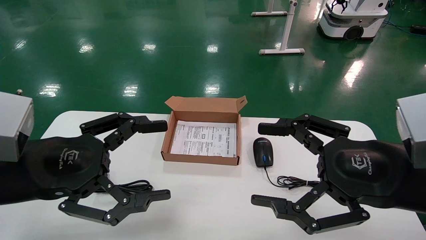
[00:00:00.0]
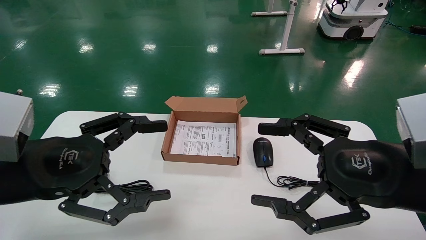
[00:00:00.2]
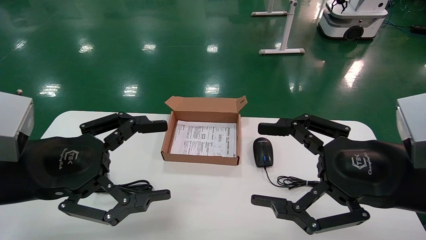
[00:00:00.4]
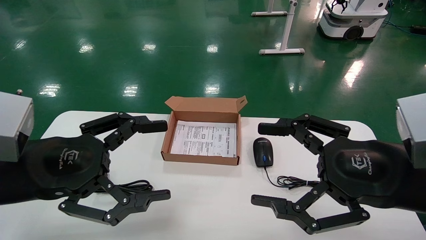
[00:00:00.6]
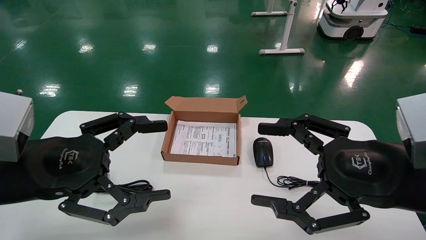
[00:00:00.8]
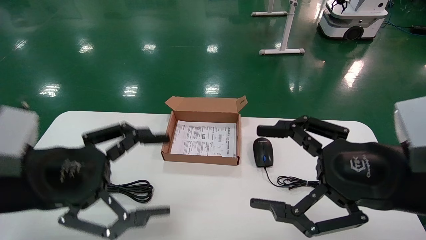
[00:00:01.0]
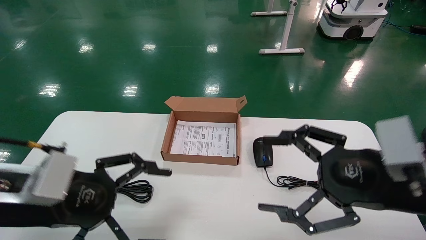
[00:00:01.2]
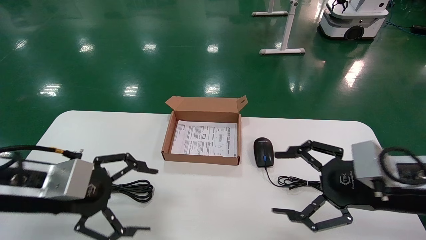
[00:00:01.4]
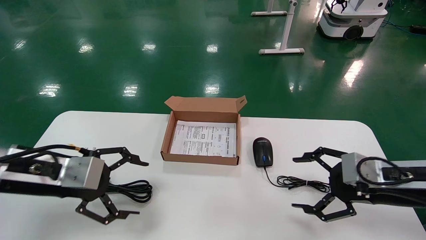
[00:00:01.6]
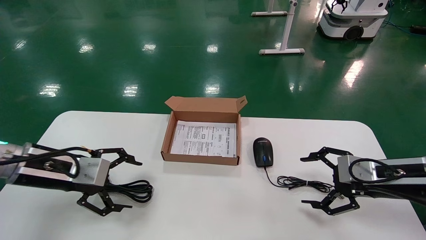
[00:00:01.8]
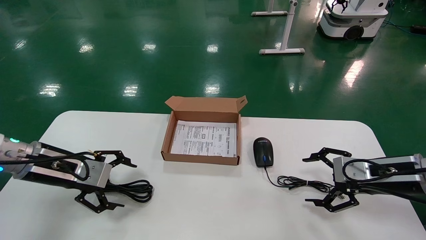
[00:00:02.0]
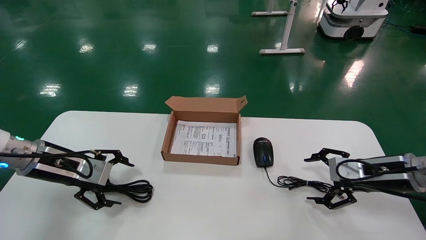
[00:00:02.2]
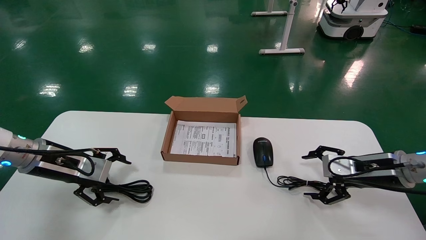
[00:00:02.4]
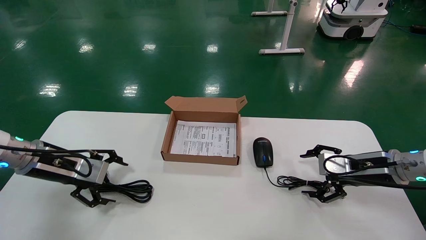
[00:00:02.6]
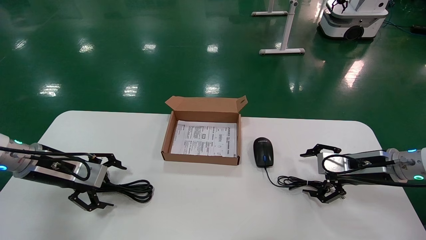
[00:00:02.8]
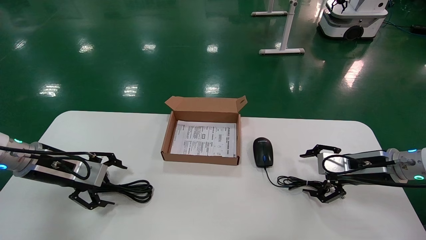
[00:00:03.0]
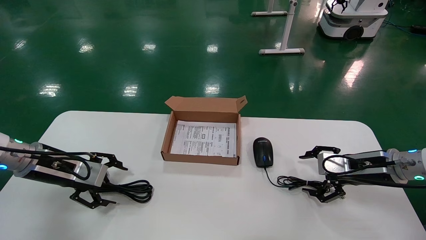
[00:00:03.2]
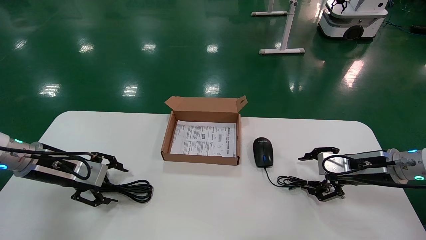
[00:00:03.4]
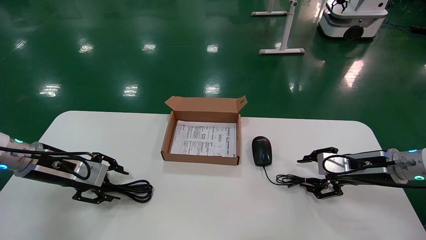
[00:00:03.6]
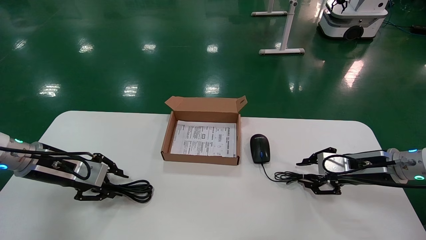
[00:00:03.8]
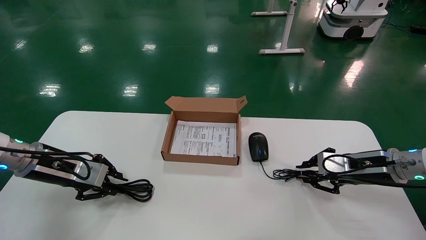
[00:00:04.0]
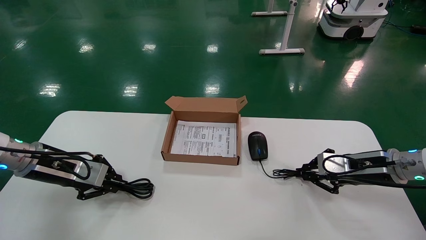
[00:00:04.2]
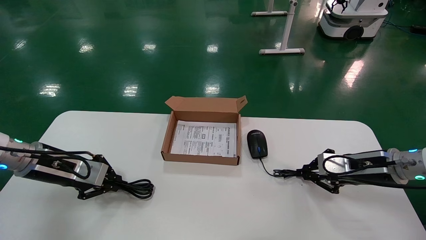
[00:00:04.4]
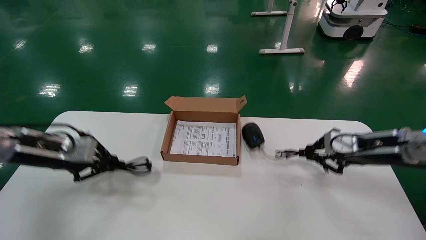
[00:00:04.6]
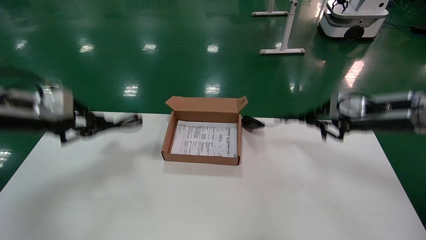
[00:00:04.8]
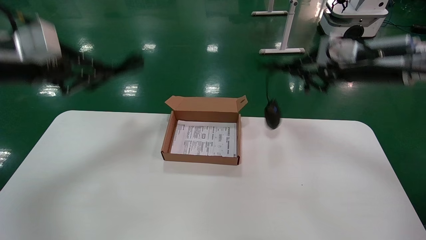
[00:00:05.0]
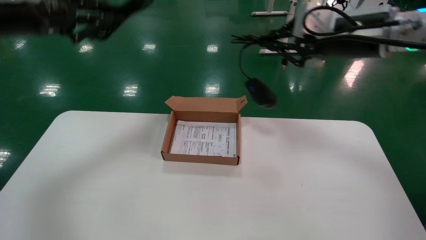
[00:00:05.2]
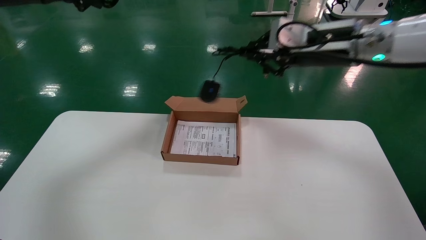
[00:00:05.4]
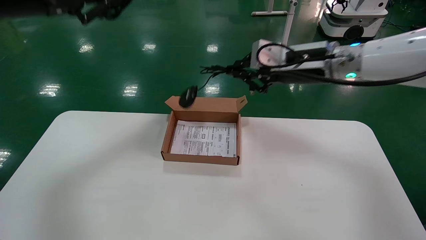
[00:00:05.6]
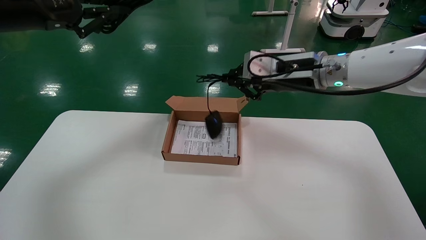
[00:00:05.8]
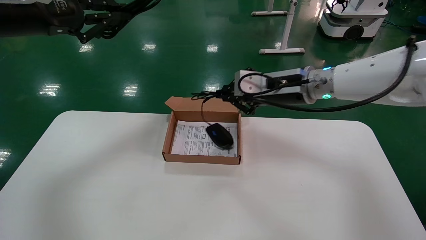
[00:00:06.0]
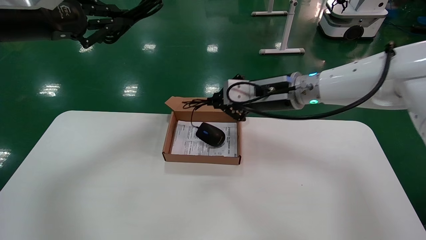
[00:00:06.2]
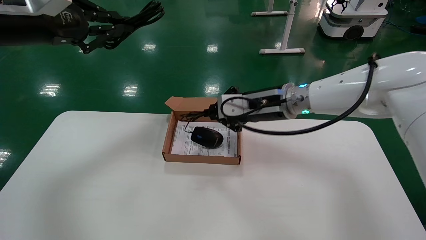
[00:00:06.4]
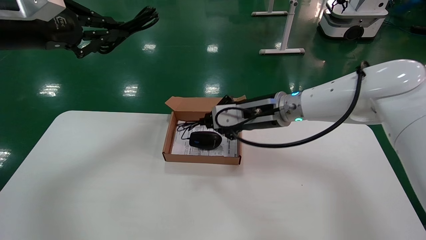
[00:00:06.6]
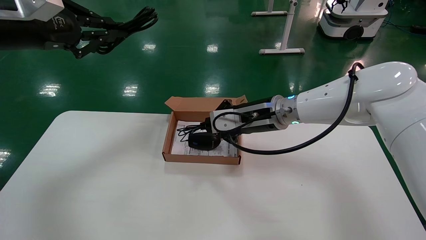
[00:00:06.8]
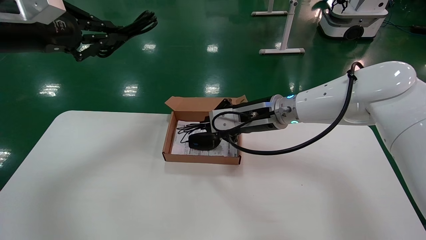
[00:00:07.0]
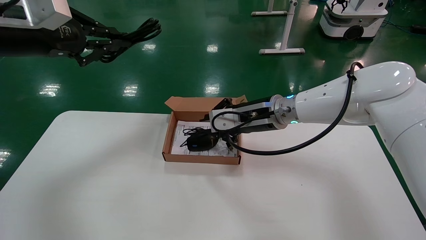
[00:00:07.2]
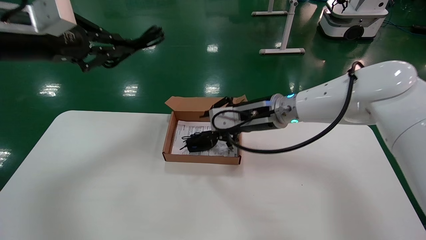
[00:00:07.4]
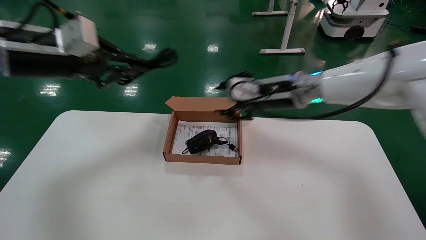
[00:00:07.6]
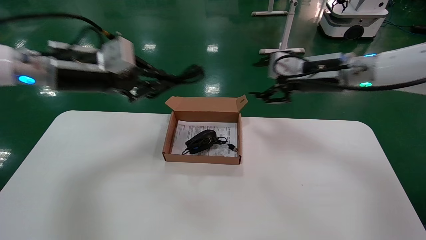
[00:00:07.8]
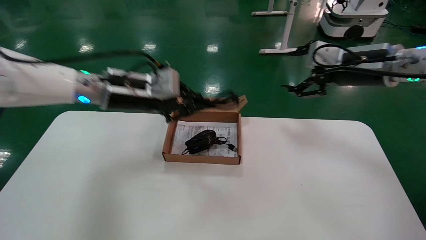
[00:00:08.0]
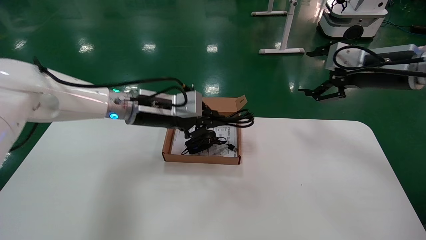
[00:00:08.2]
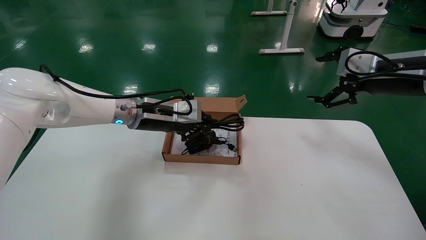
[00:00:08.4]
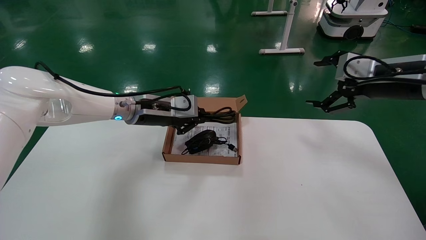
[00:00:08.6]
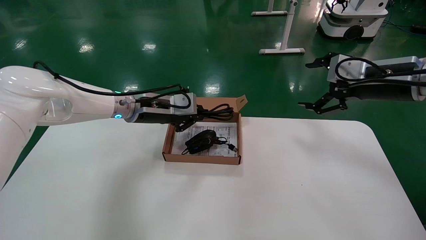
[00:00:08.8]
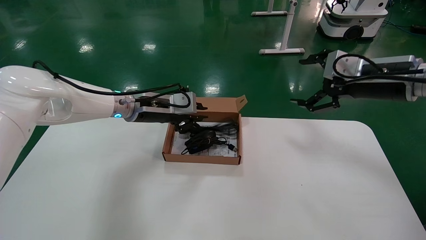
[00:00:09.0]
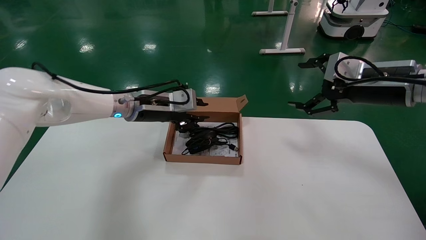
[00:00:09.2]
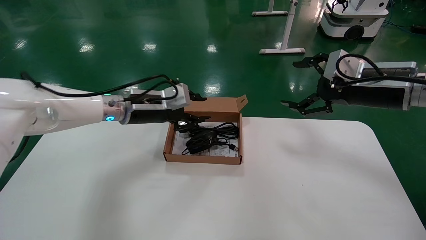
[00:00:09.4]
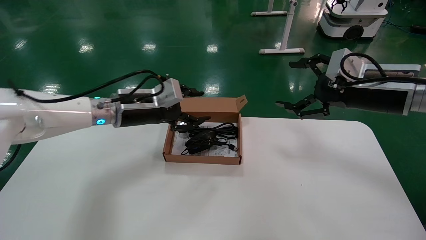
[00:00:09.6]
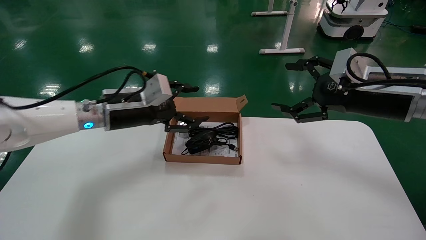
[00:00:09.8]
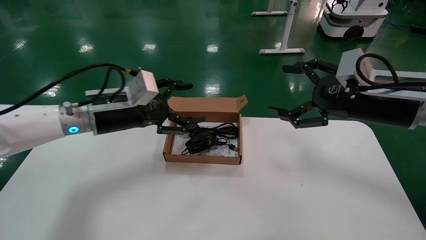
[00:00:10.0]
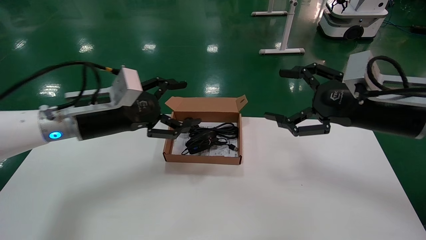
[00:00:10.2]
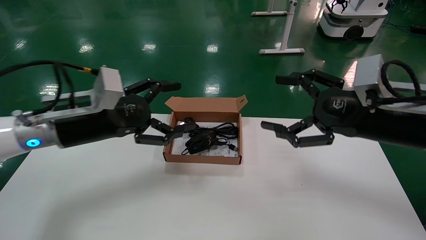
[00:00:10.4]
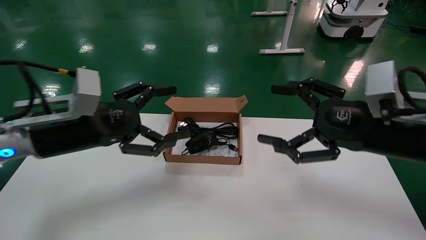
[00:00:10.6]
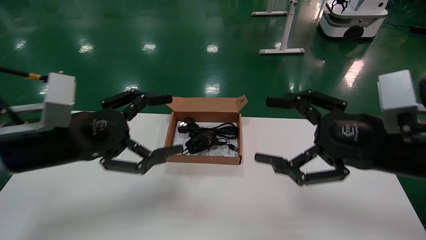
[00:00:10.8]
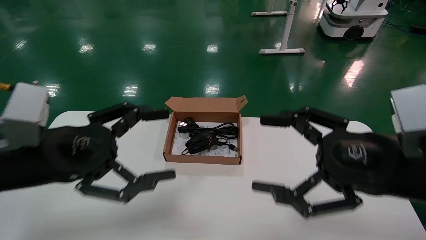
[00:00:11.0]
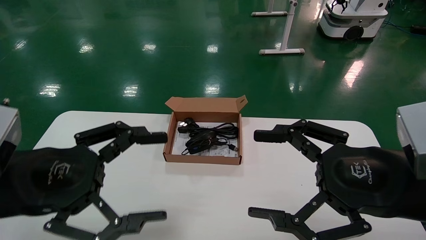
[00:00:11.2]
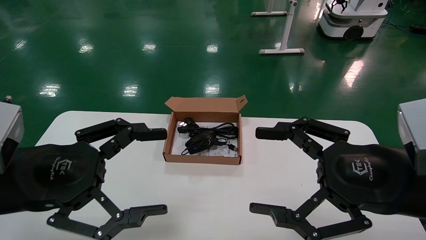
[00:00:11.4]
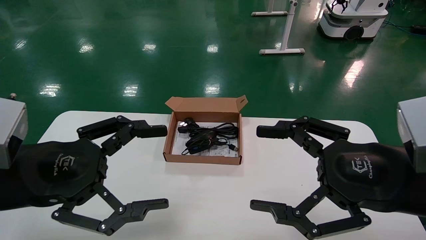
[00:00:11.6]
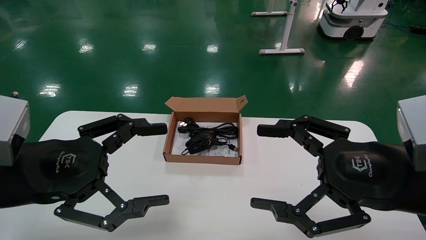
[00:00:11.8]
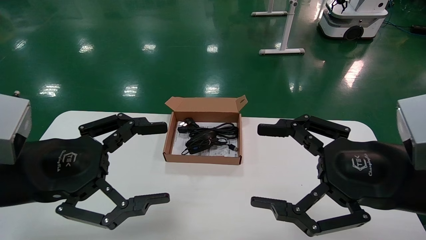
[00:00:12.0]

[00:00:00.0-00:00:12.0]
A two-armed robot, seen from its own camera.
Step, 00:00:01.2 to 00:00:04.6: Grab and lift both the mouse and power cord from the accessory packaging area at the same time.
Step, 00:00:04.8 to 00:00:09.2: Place the mouse and power cord into the box.
00:00:00.0 to 00:00:01.6: The left gripper is displaced forward by approximately 10 cm; the right gripper goes roughly 15 cm forward, downward and to the right.
00:00:01.6 to 00:00:03.0: The right gripper heads forward, covering roughly 10 cm; the left gripper shifts some 10 cm forward and to the left.
00:00:03.0 to 00:00:04.4: The right gripper closes its fingers, while the left gripper closes its fingers.
00:00:04.4 to 00:00:06.0: The right gripper is displaced to the left and upward by roughly 25 cm. The left gripper travels upward by approximately 25 cm.
00:00:06.0 to 00:00:07.6: The left gripper shifts roughly 5 cm downward.
00:00:07.6 to 00:00:09.0: The left gripper heads to the right, downward and forward, covering some 20 cm; the right gripper shifts roughly 15 cm to the right, and opens up.
00:00:09.0 to 00:00:10.4: The right gripper shifts roughly 10 cm backward; the left gripper travels backward and to the left by roughly 15 cm, and opens its fingers.
00:00:10.4 to 00:00:12.0: Both grippers travel together backward, some 10 cm.

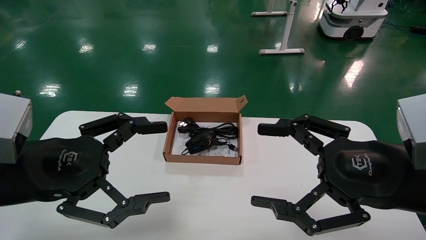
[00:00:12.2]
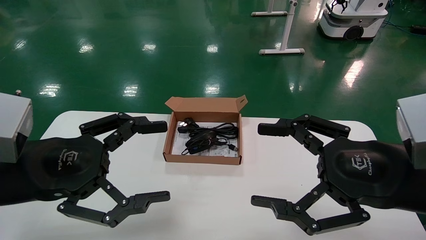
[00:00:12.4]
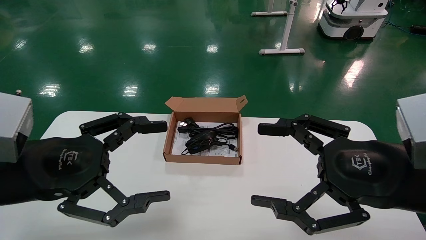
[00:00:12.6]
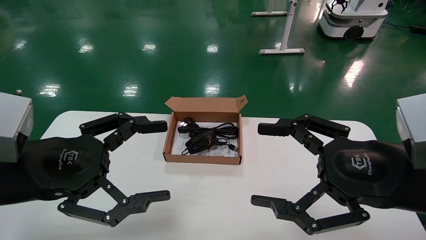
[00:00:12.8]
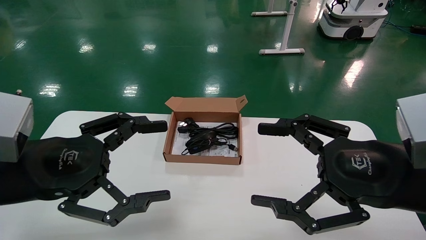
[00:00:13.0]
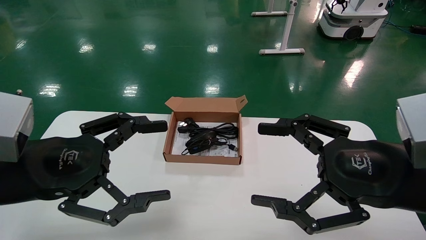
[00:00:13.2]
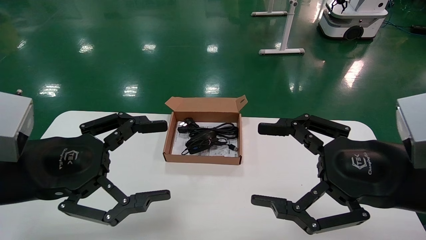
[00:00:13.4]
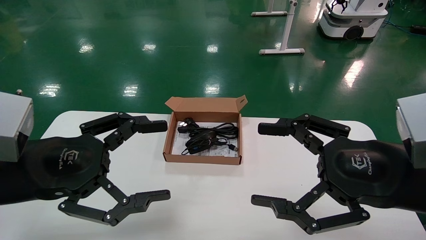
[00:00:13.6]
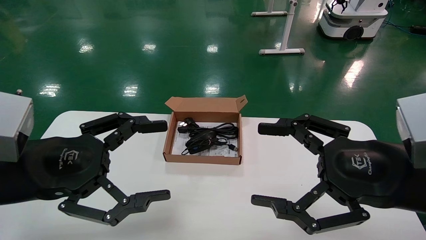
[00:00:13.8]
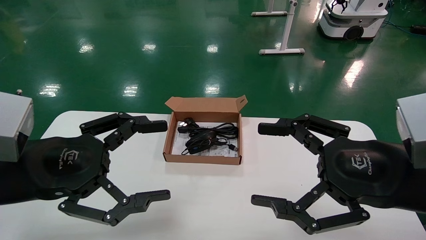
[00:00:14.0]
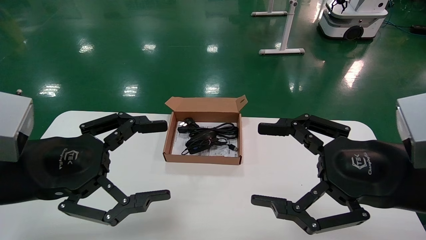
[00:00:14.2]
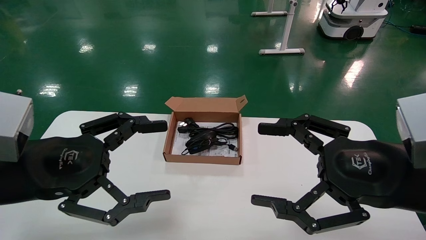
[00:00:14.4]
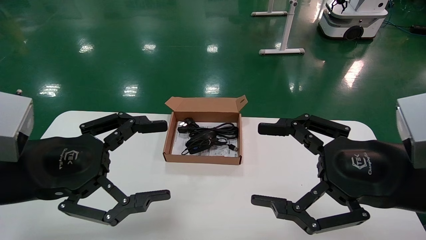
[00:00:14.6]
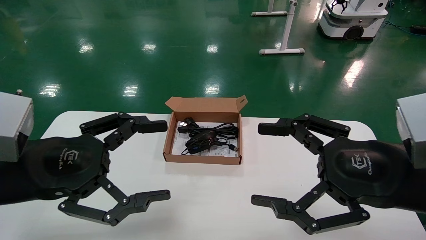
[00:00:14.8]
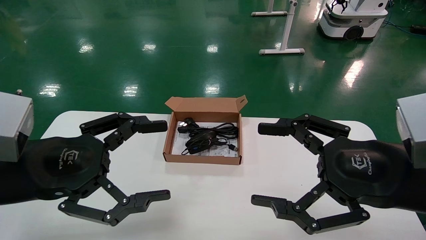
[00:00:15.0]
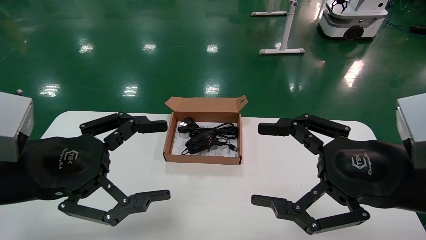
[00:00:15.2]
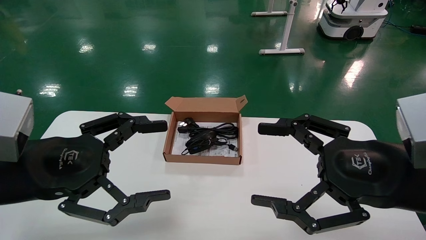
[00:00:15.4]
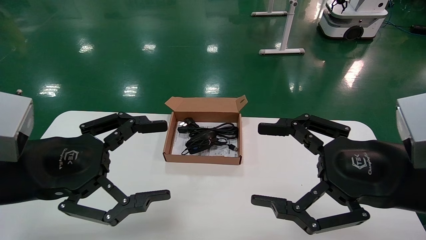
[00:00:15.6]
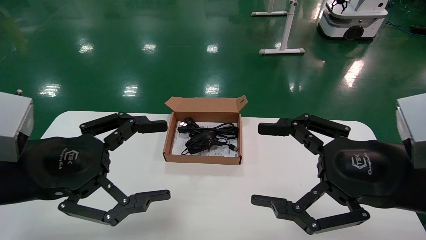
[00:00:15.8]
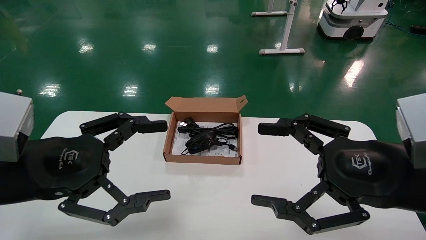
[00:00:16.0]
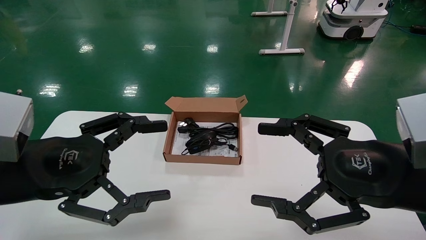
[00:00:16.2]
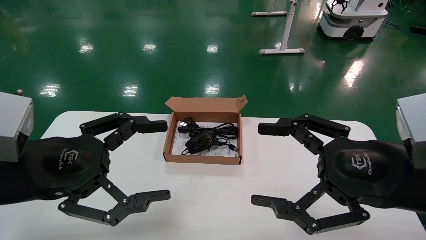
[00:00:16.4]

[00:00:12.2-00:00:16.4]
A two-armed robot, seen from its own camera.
00:00:12.2 to 00:00:16.4: Both grippers stay put.
